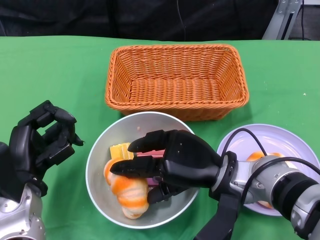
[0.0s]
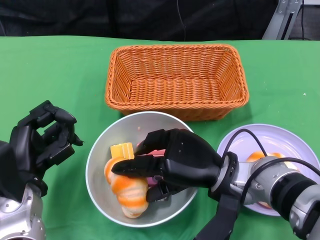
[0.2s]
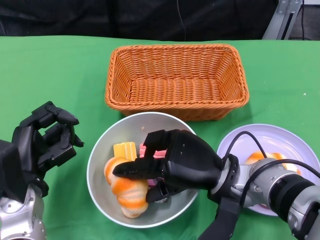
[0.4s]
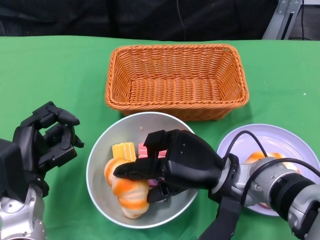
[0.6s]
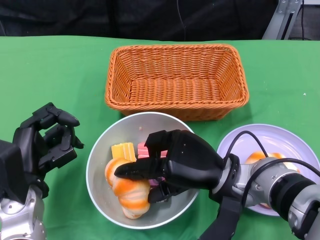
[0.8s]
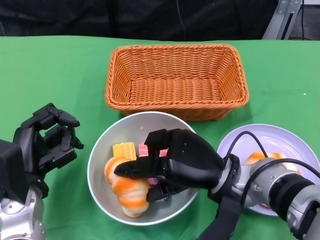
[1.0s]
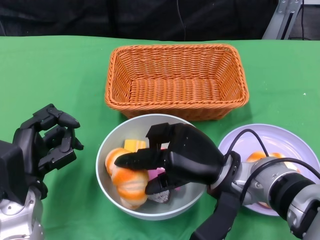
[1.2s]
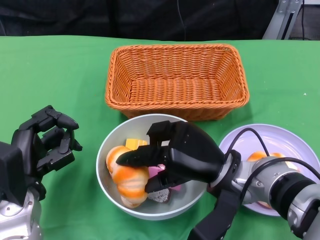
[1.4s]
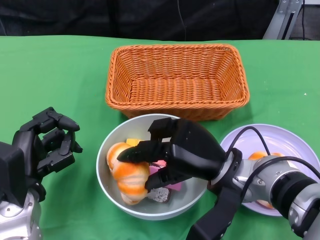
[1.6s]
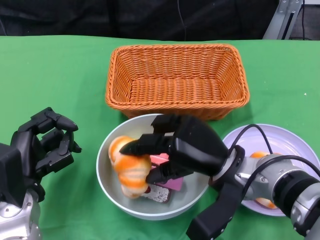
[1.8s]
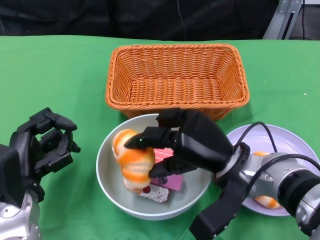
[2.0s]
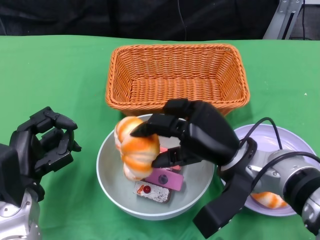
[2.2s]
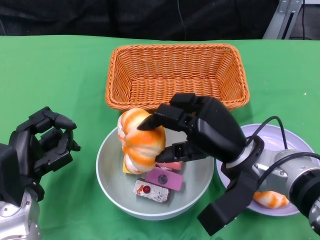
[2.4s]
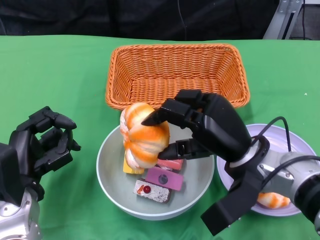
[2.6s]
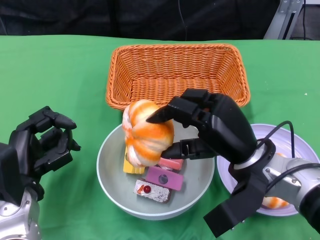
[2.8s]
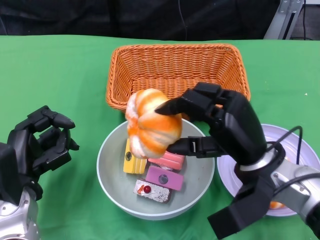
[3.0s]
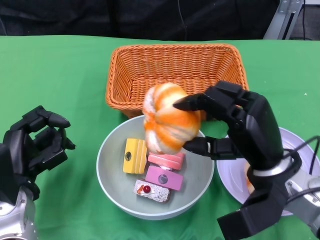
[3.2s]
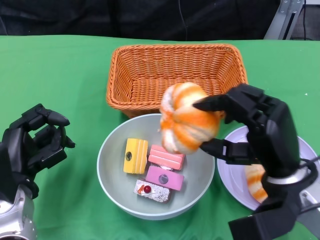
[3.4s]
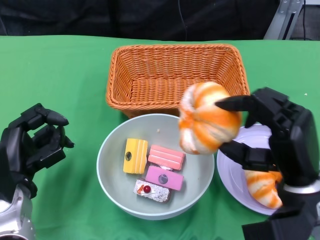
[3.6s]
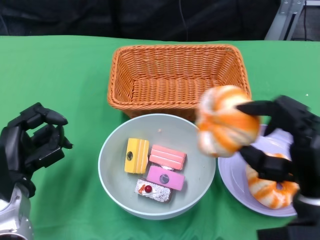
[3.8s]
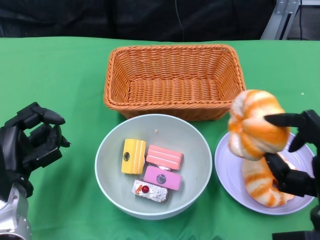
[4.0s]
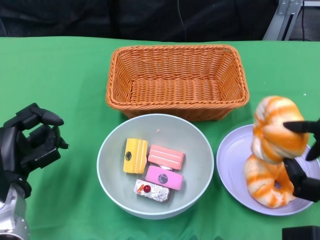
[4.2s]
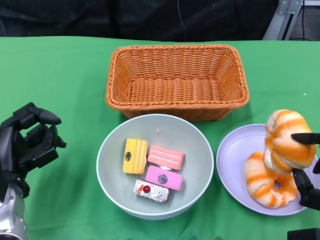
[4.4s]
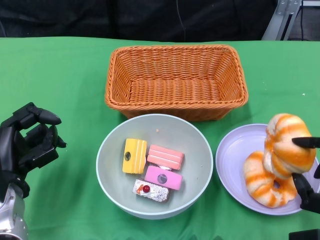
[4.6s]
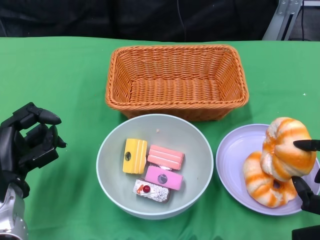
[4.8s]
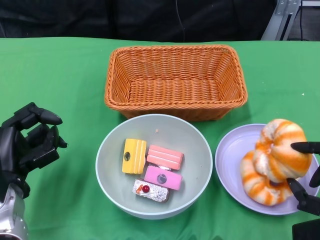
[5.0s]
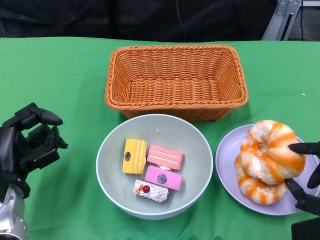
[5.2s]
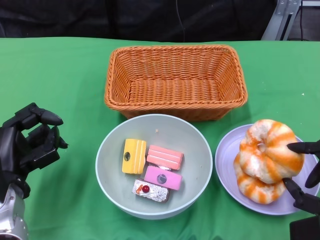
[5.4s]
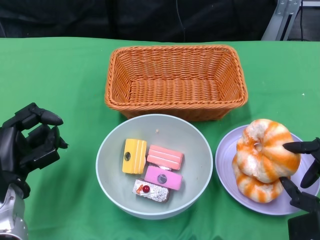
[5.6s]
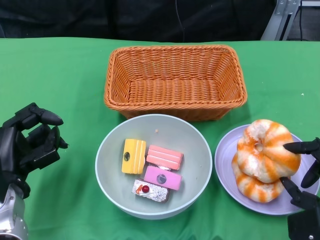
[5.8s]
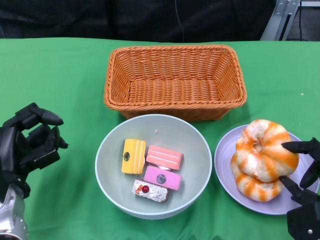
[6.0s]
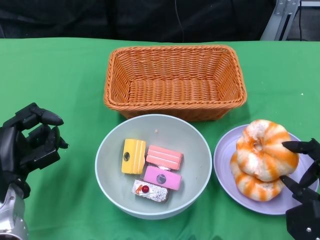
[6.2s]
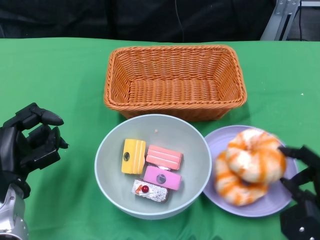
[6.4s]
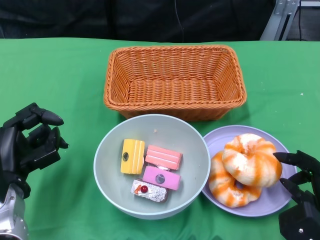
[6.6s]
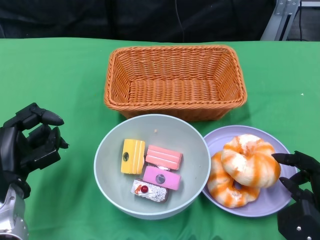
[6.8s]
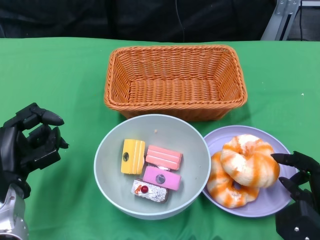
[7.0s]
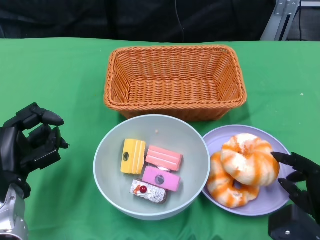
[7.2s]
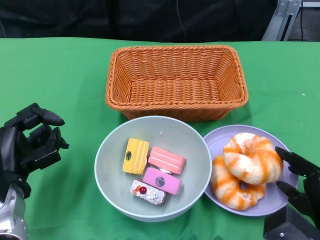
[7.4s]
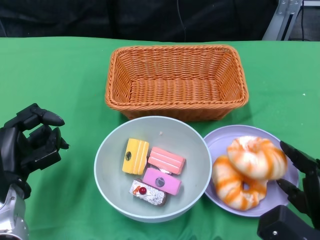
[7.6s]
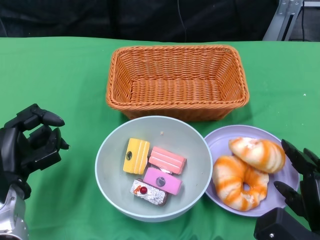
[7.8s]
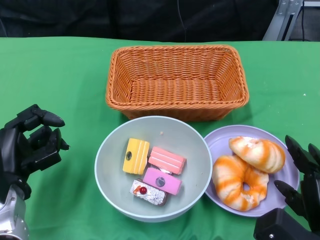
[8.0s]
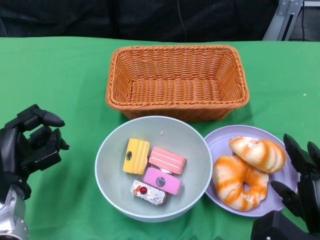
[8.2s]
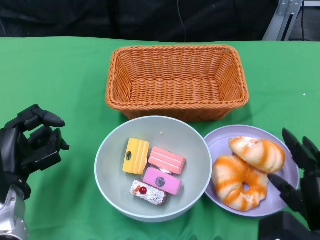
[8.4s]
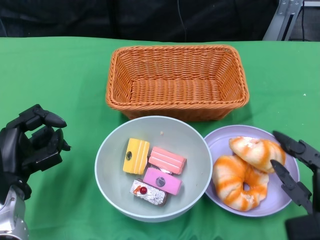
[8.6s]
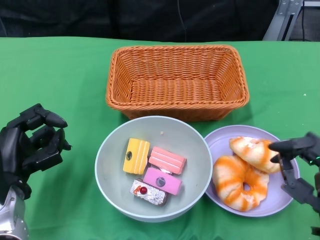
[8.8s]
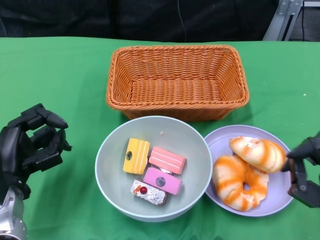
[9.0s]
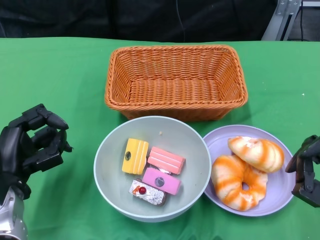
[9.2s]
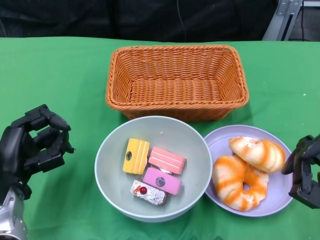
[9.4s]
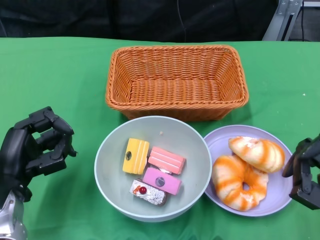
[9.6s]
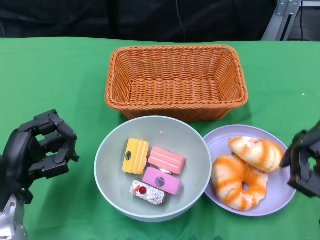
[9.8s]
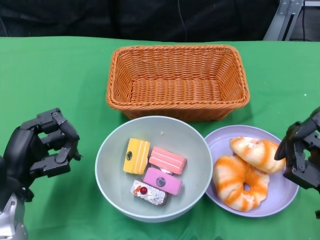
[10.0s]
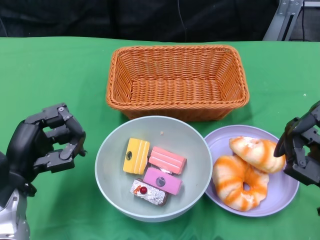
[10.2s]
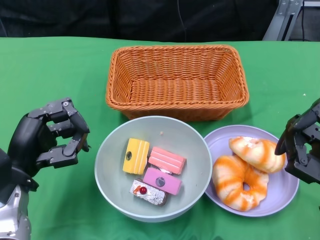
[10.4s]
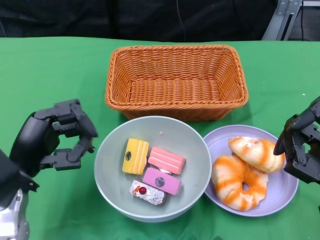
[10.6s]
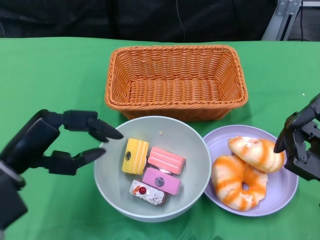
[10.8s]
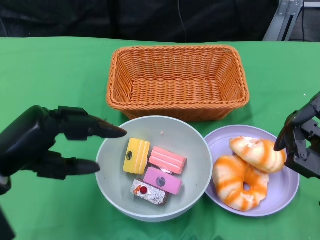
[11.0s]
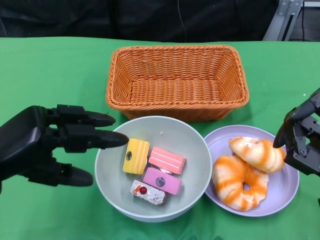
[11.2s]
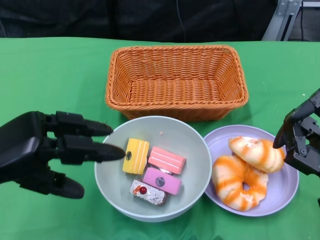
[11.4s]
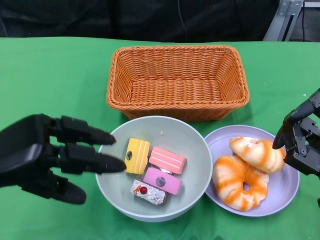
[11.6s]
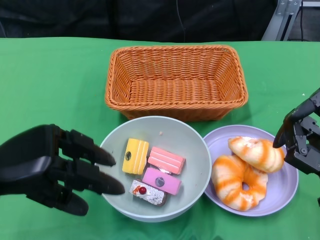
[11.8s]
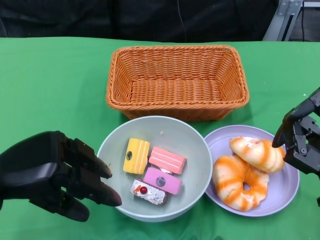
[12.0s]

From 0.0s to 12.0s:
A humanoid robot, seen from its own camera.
Step, from 0.0s to 8.0s: Pick up the bread with the right gripper and place it on the plate.
From 3.0s to 4.4s: The right hand moves to the right, backward and downward, roughly 15 cm.
From 6.0s to 7.6s: The hands make only small movements.
From 7.6s to 9.0s: The right hand is displaced upward by roughly 5 cm.
From 9.0s to 10.4s: The hands move only a little.
From 10.4s to 12.0s: The left hand moves upward, some 5 cm.

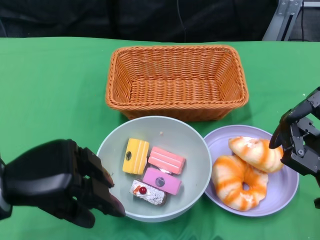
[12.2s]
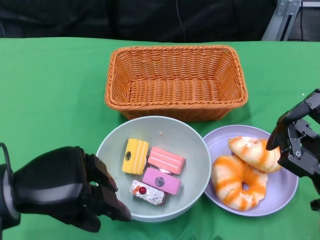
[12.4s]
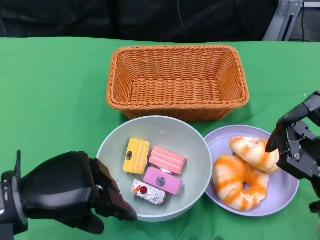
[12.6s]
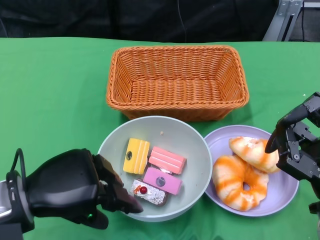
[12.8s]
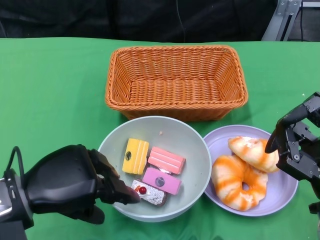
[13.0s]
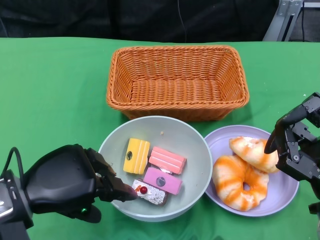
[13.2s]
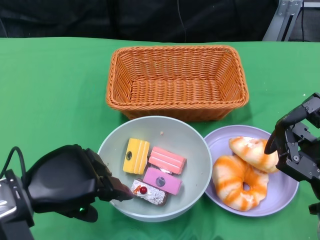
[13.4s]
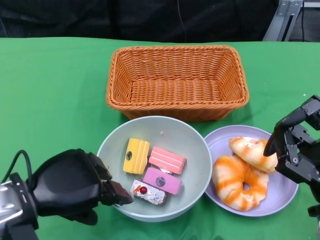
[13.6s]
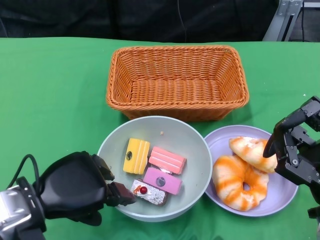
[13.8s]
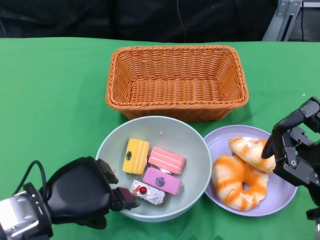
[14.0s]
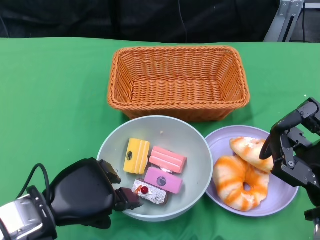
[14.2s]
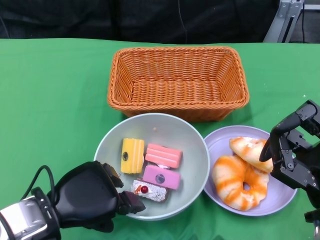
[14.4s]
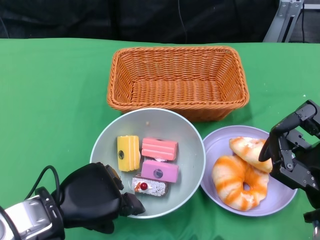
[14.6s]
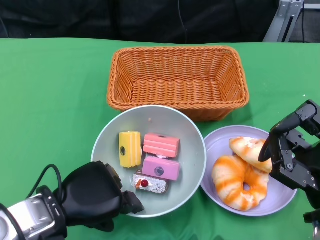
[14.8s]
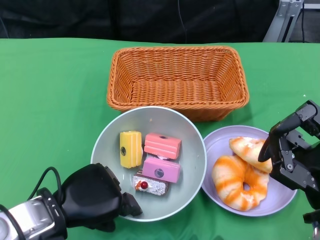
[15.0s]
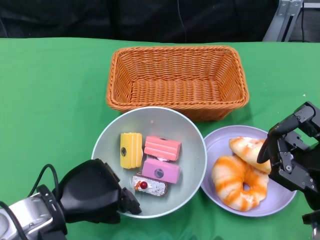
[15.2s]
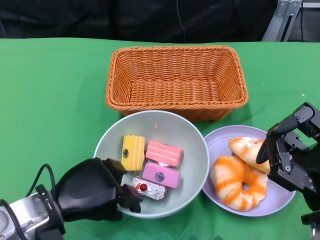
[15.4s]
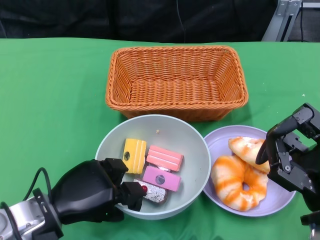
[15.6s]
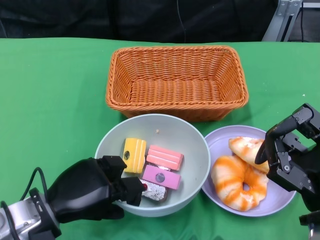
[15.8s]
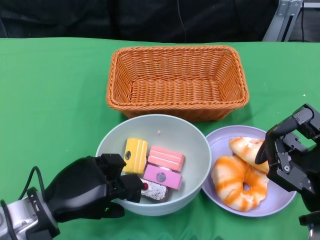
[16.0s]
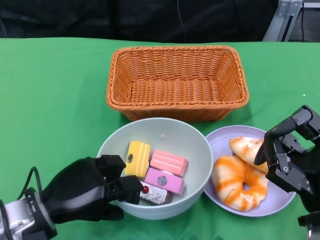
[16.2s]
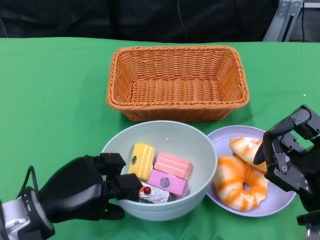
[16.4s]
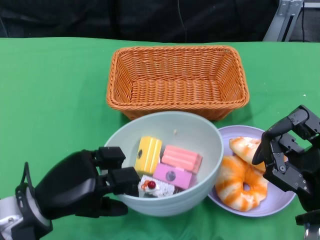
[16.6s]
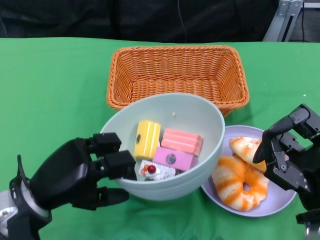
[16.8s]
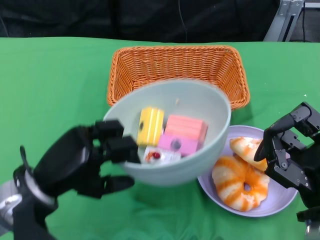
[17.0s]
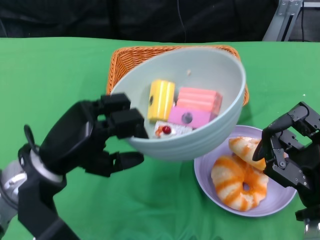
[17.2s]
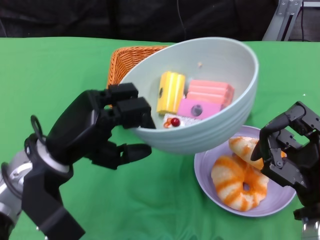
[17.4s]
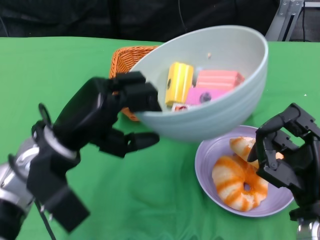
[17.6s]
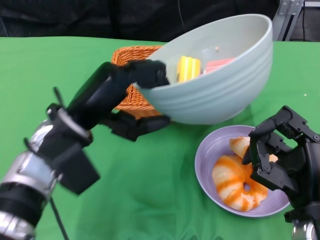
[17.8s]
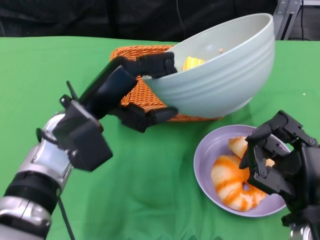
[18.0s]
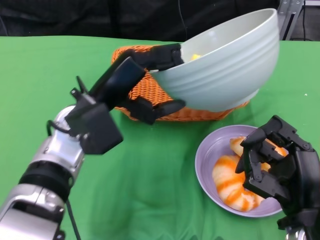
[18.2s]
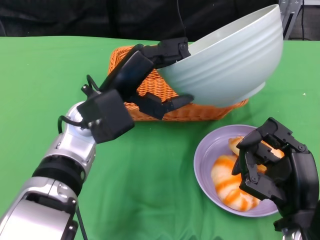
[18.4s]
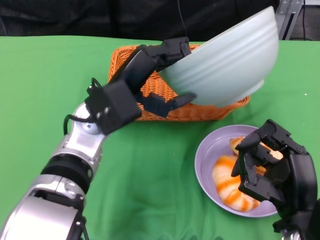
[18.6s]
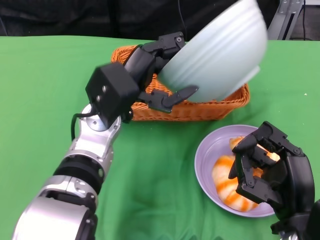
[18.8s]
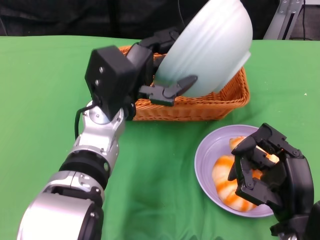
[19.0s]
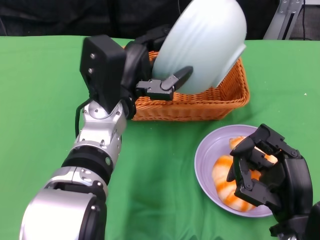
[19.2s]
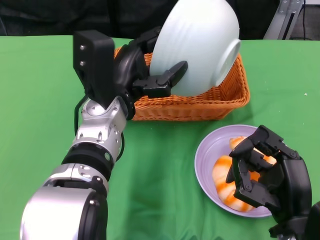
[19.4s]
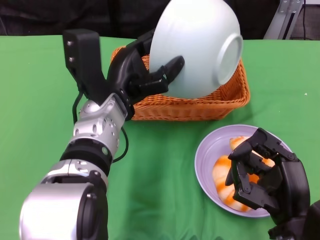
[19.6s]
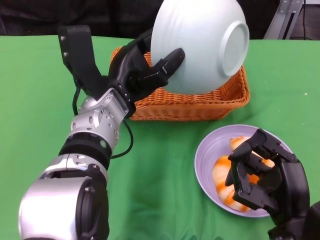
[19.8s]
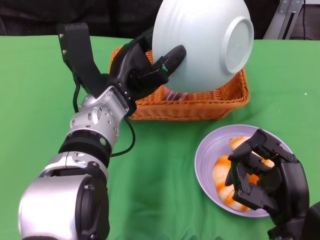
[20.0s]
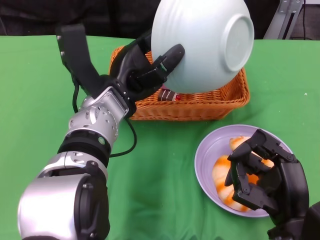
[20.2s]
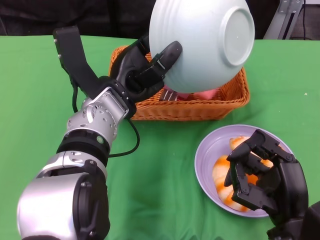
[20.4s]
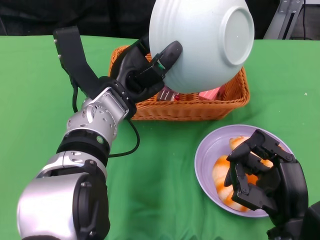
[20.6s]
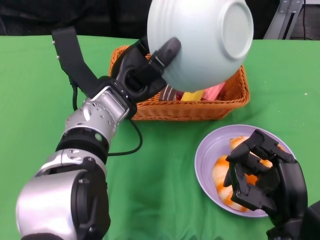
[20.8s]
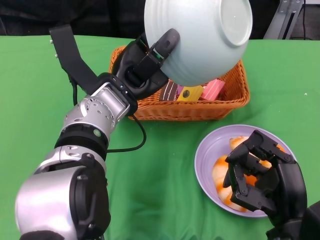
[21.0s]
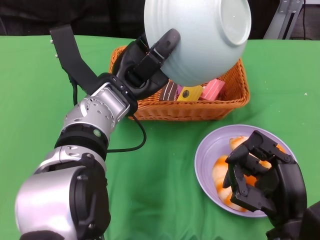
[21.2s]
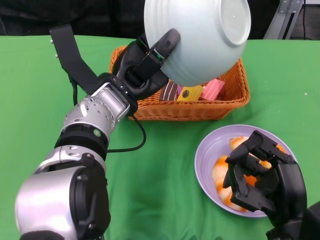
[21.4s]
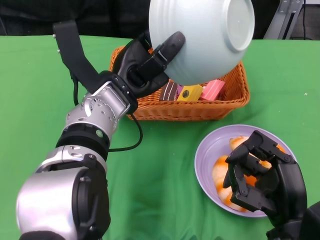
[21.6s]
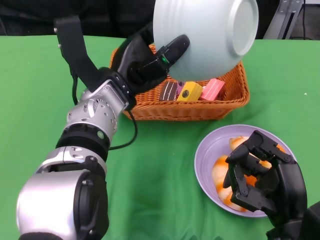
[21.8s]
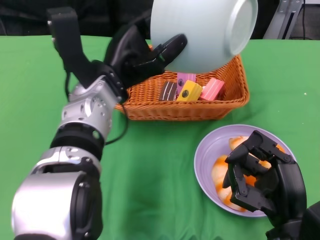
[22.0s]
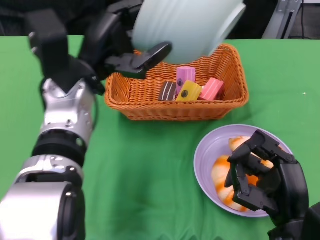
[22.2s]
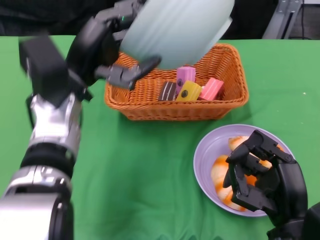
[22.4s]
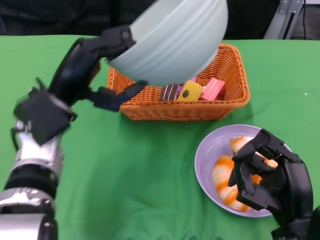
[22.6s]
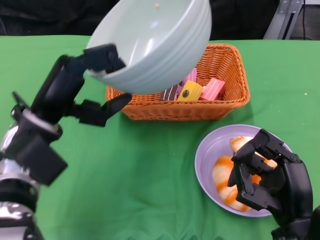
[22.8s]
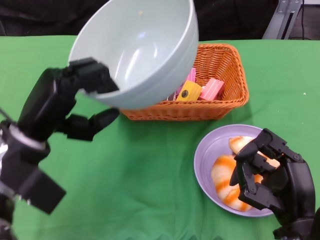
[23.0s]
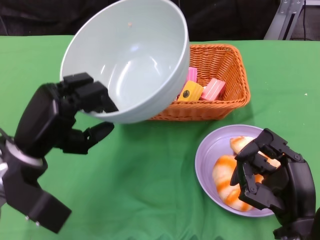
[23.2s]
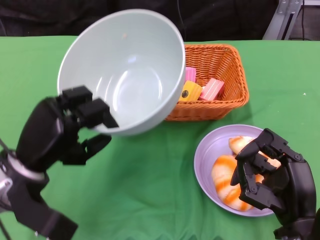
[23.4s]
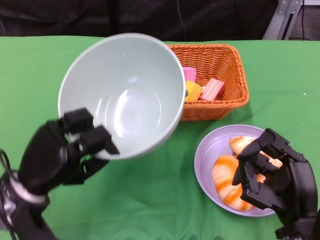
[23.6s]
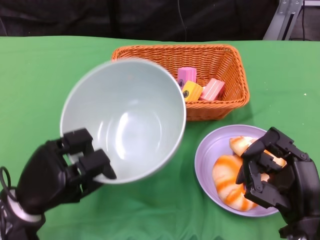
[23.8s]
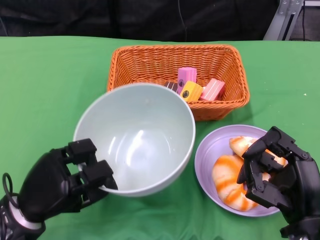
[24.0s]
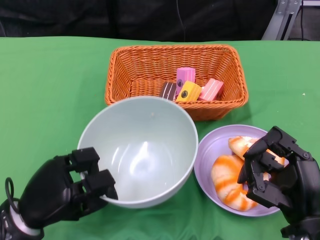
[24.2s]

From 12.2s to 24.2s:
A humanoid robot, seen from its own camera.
Step, from 12.2s to 16.0s: Grasp the bowl with the left gripper.
Step, from 16.2s to 22.0s: Pour the cake into the basket with the left gripper.
From 13.8s to 15.2s: The hands stay close to where they were, moving slightly.
From 16.6s to 18.2s: The left hand is displaced forward, upward and to the right by some 15 cm.
From 21.2s to 22.6s: The left hand travels to the left by roughly 10 cm.
From 22.6s to 24.2s: The left hand heads downward, backward and to the left, covering roughly 15 cm.
